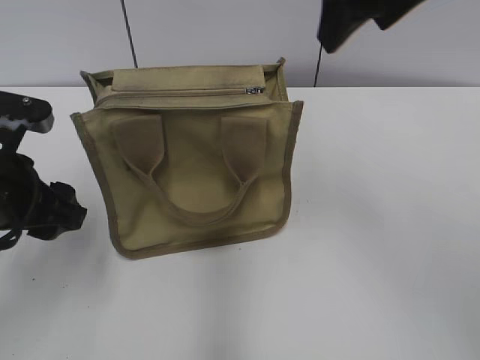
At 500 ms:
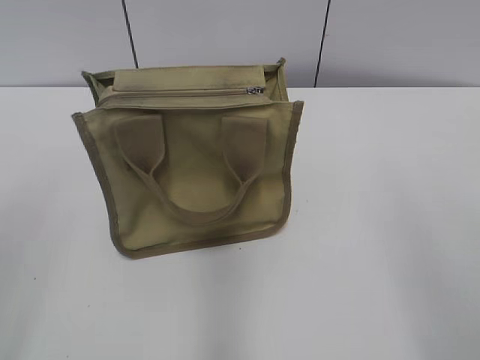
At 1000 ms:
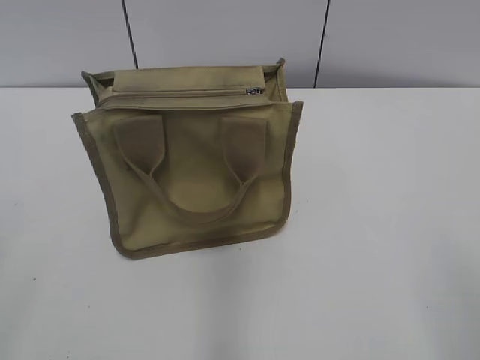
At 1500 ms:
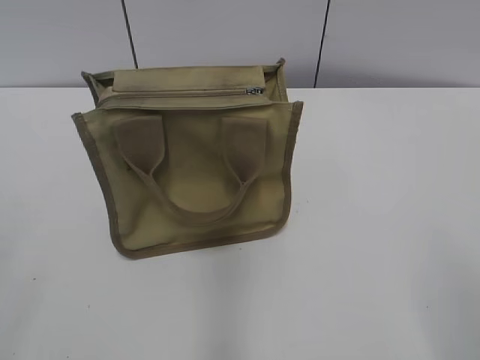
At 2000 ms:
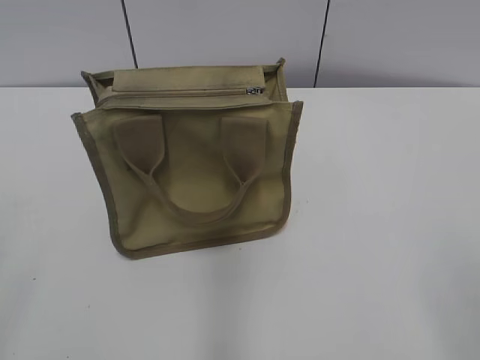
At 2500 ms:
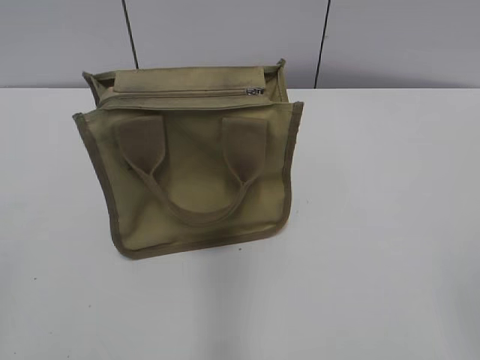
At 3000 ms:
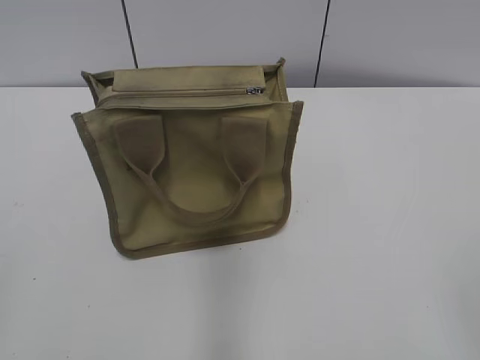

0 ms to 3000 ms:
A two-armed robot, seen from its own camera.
0 ms to 1500 ms: The right gripper travels backward and to the right by about 30 cm. Meanwhile the left gripper goes roughly 25 cm backward, upward and to the left.
